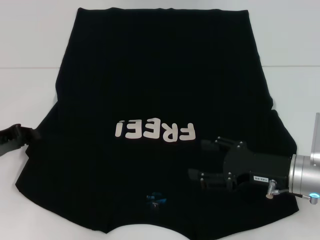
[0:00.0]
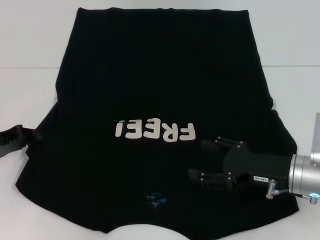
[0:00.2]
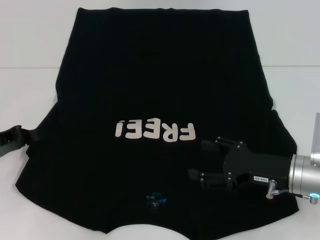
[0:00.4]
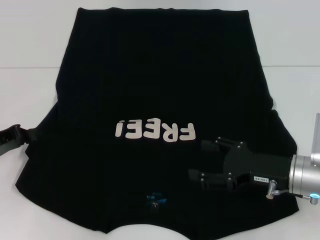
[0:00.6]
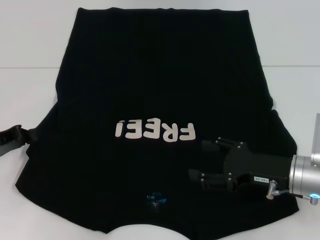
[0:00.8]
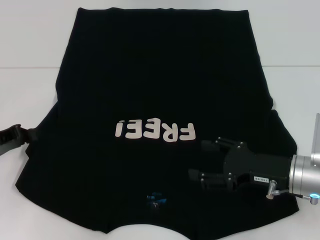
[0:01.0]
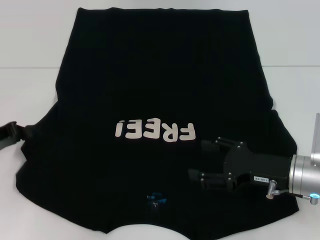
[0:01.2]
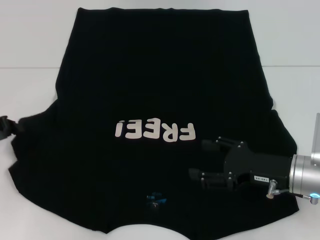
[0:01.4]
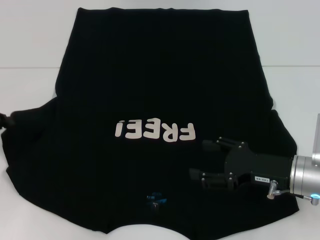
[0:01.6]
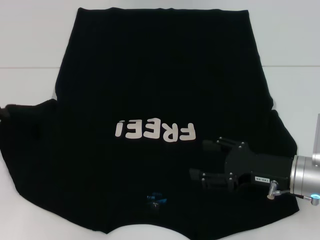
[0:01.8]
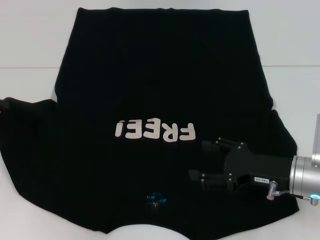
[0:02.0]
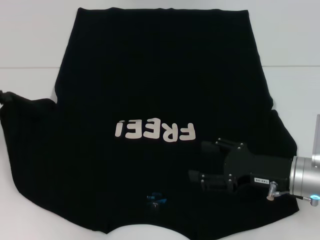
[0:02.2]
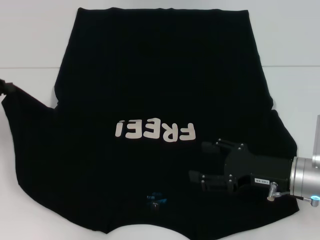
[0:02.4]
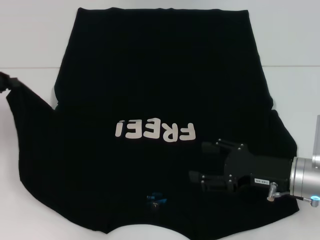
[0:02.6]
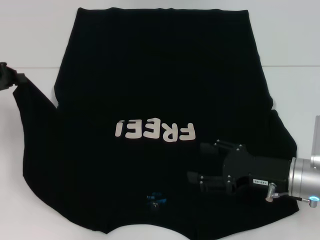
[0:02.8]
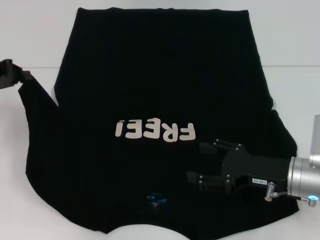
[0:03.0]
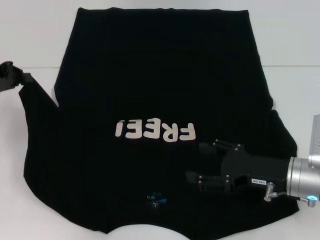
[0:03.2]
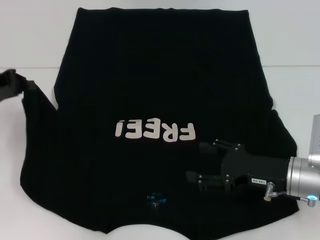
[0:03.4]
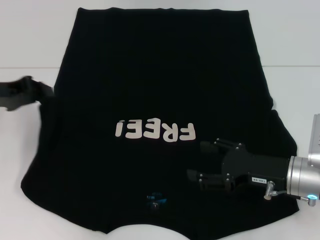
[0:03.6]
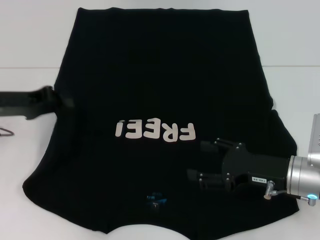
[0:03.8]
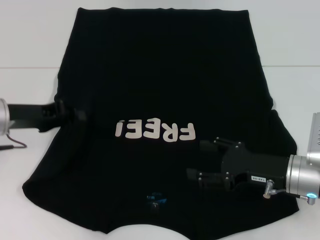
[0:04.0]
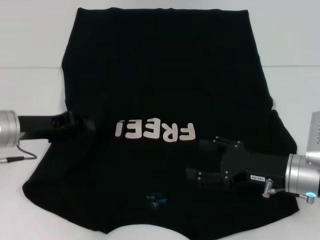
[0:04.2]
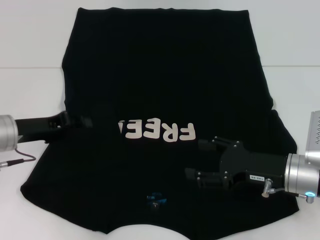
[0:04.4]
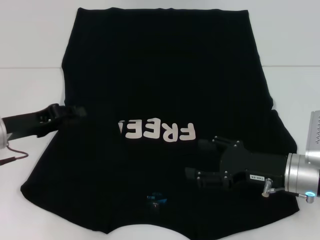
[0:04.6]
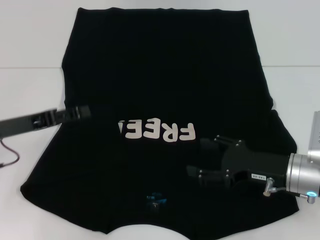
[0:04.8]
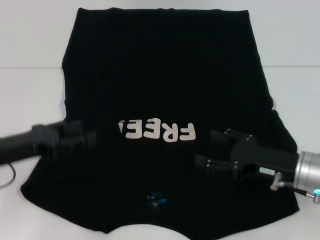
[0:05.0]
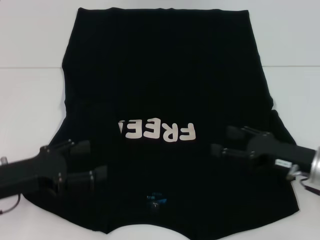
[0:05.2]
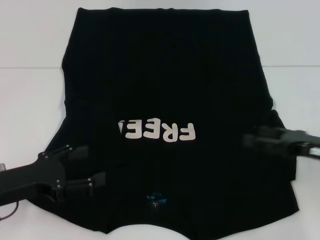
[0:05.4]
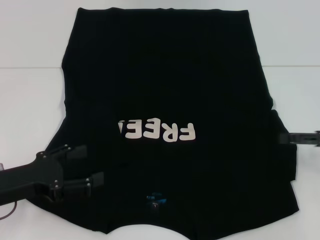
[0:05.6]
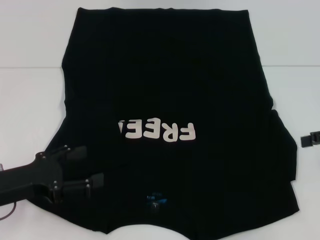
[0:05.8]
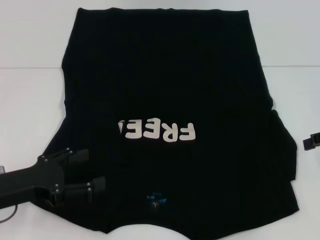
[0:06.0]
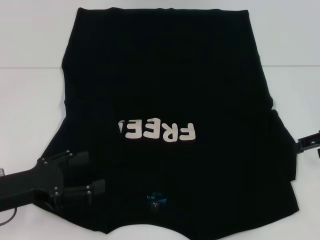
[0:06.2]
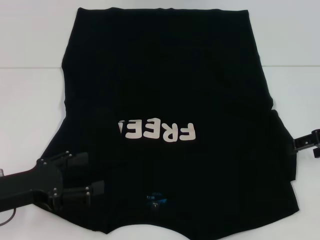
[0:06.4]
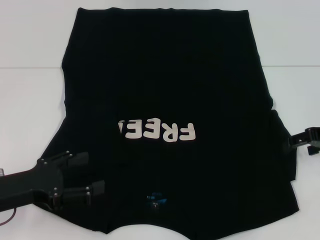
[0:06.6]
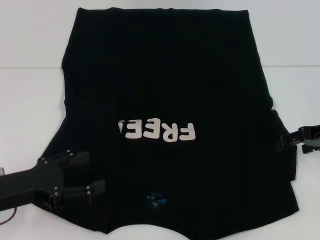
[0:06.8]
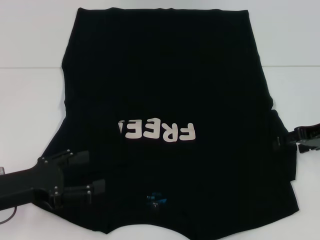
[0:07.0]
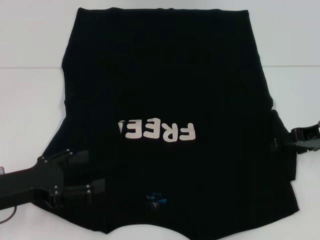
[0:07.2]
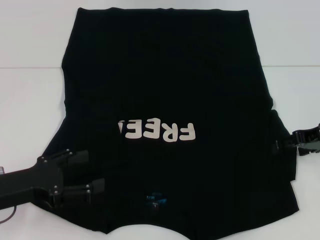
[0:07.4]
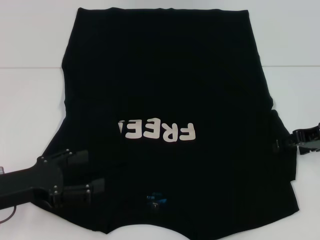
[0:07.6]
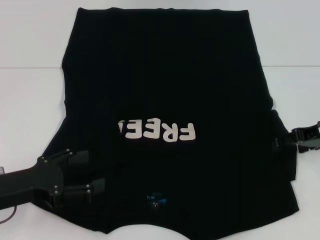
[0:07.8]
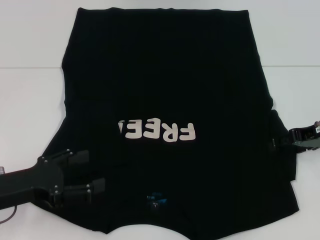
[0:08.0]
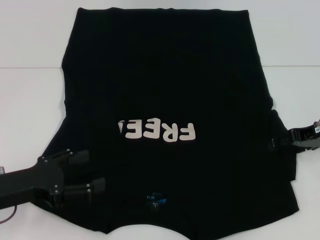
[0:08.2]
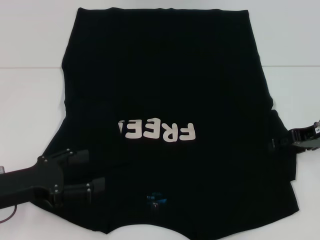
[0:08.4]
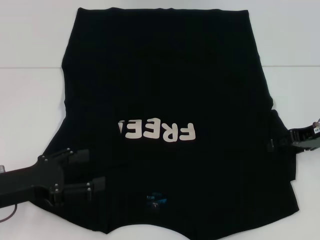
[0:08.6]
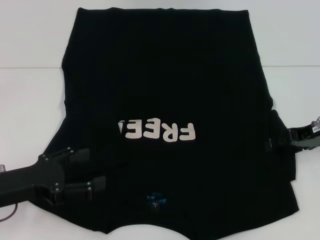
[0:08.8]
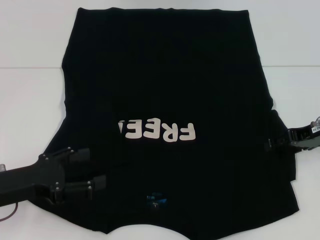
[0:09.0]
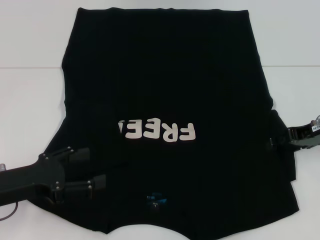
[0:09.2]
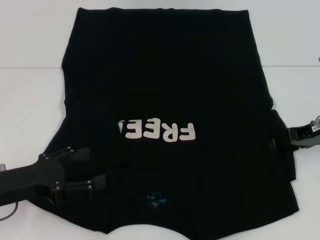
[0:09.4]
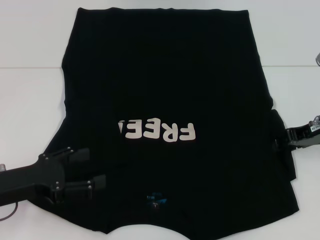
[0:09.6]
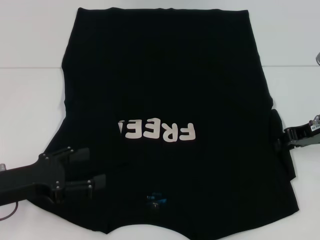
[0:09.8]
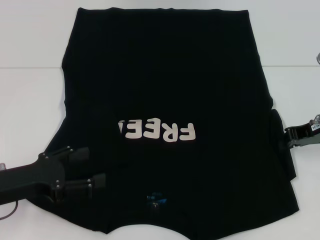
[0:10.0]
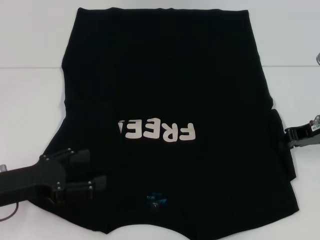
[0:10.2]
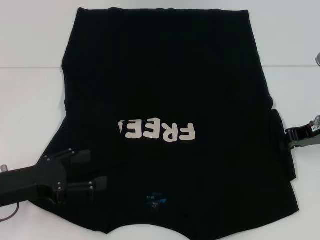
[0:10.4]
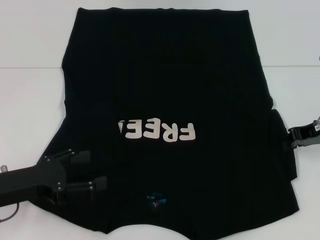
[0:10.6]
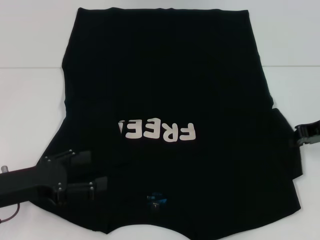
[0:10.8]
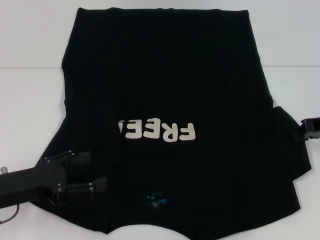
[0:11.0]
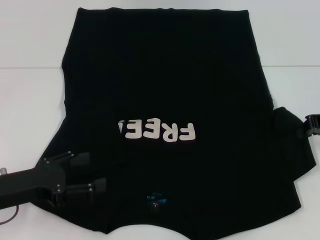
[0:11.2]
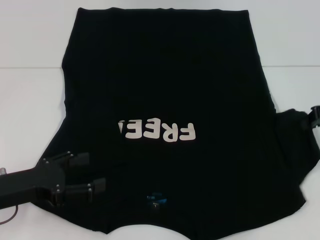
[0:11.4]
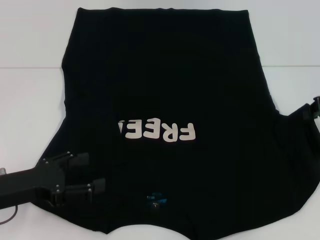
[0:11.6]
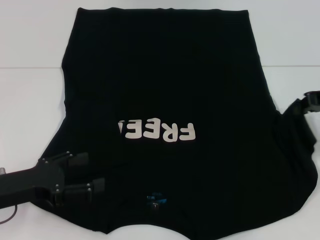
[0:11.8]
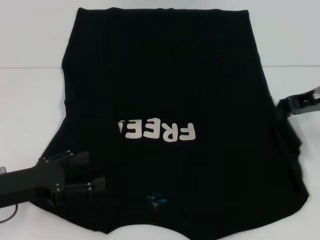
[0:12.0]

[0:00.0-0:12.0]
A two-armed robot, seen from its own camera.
Step, 0:00.0 to 0:04.8: Fold the bottom left sleeve with your left hand.
0:00.0 to 0:01.6: The grippers make only small movements.
0:01.6 to 0:03.0: The left gripper goes approximately 10 cm upward and forward.
0:03.0 to 0:04.4: The left gripper goes roughly 10 cm downward and to the right.
0:04.4 to 0:06.0: The left gripper travels backward by about 10 cm, and opens its fingers; the right gripper shifts some 20 cm to the right, upward and forward.
0:06.0 to 0:07.6: The right gripper changes place by about 5 cm.
0:07.6 to 0:09.0: The two grippers keep their place.
0:09.0 to 0:10.4: The right gripper closes.
0:10.4 to 0:12.0: The right gripper shifts about 5 cm upward.

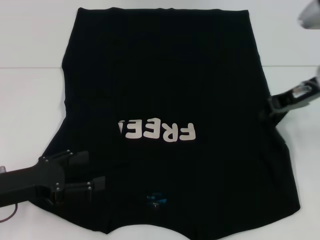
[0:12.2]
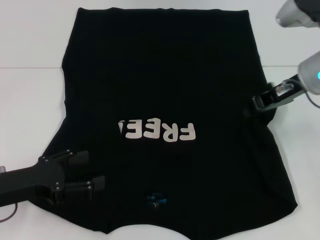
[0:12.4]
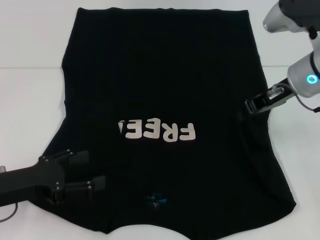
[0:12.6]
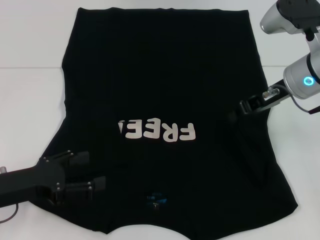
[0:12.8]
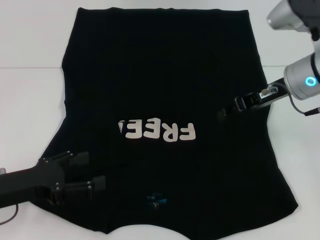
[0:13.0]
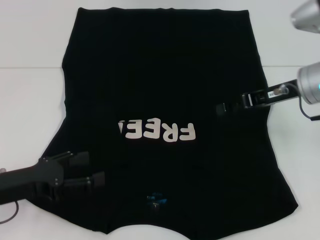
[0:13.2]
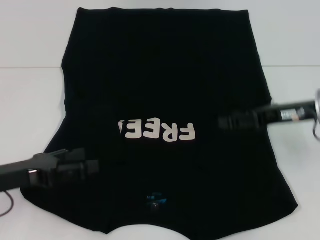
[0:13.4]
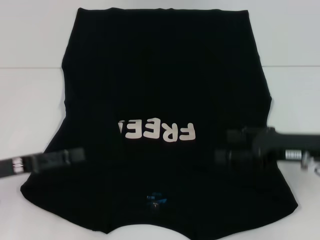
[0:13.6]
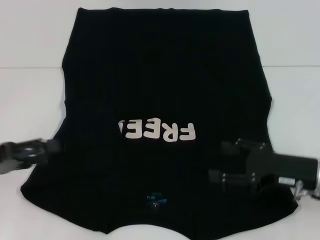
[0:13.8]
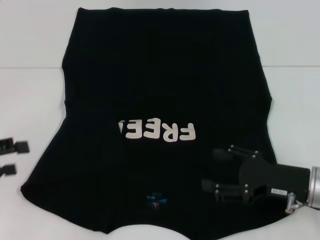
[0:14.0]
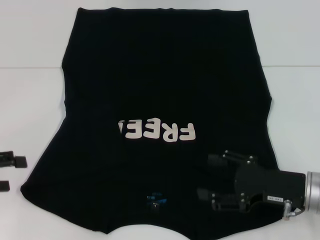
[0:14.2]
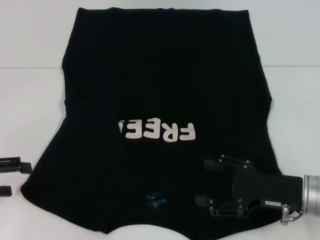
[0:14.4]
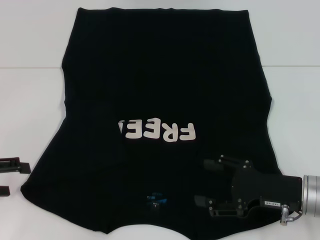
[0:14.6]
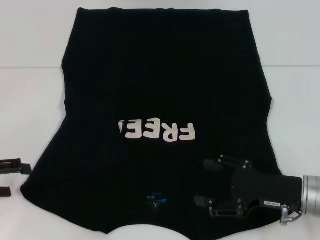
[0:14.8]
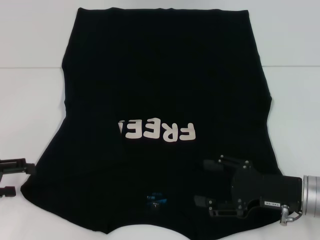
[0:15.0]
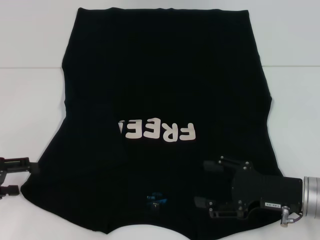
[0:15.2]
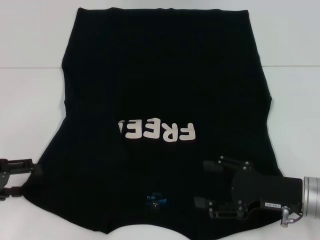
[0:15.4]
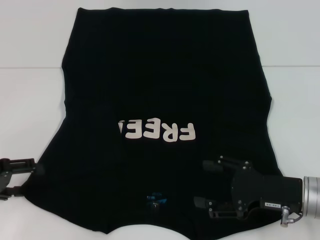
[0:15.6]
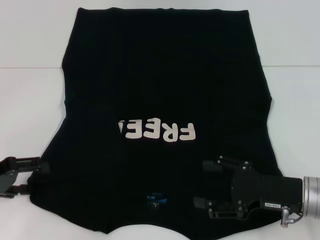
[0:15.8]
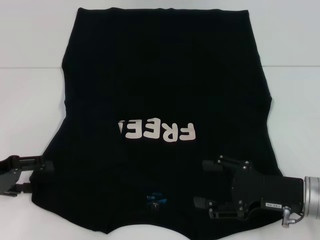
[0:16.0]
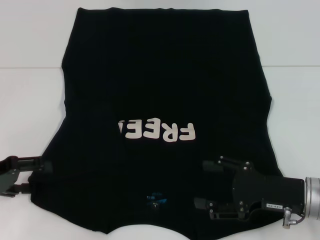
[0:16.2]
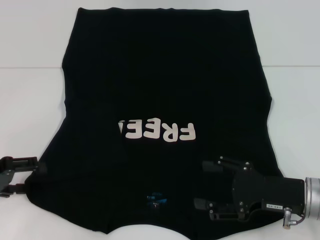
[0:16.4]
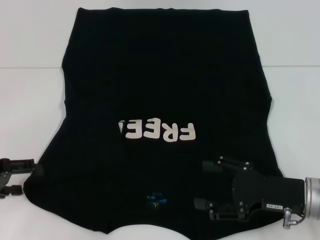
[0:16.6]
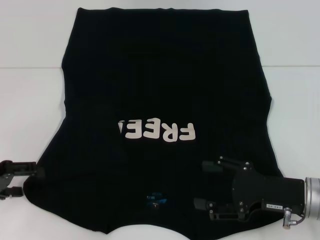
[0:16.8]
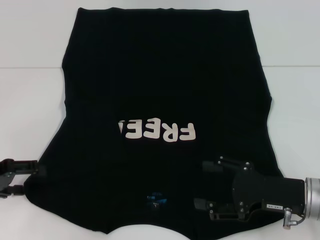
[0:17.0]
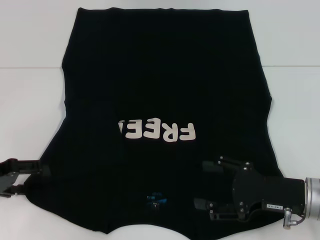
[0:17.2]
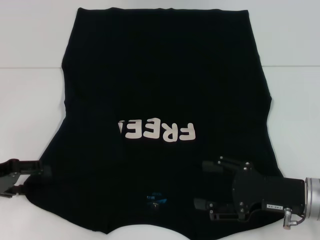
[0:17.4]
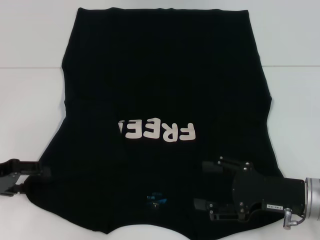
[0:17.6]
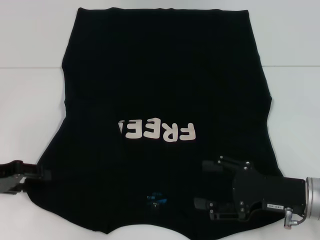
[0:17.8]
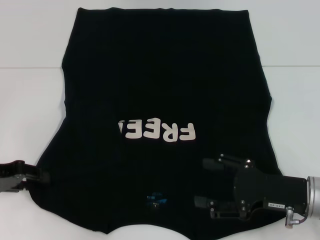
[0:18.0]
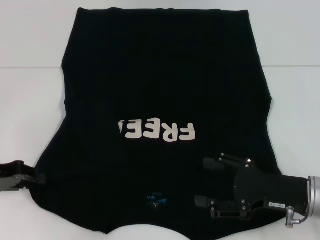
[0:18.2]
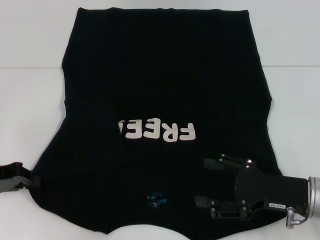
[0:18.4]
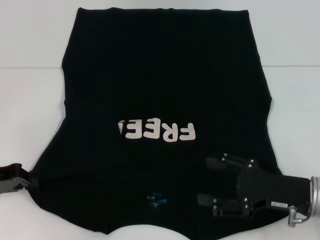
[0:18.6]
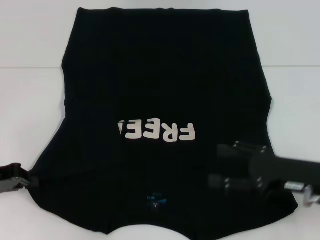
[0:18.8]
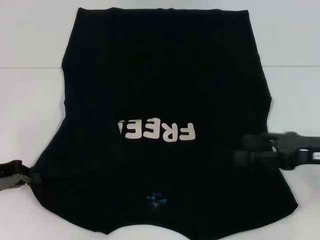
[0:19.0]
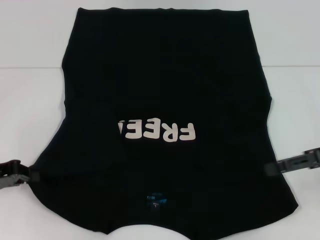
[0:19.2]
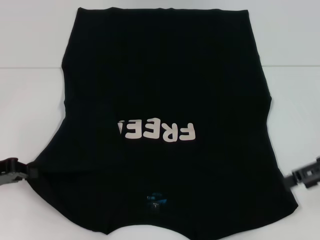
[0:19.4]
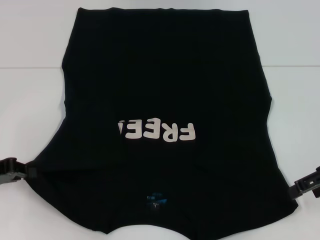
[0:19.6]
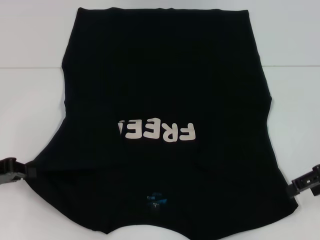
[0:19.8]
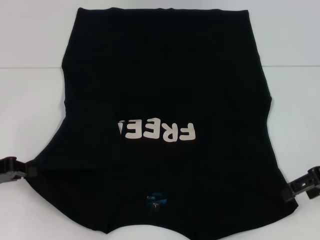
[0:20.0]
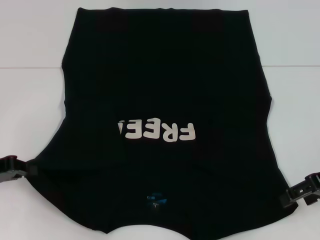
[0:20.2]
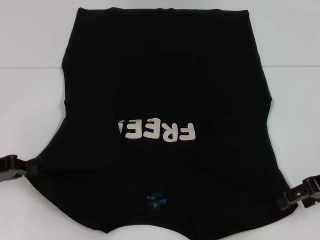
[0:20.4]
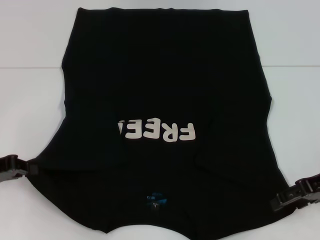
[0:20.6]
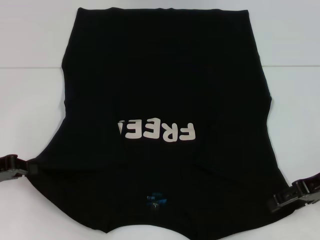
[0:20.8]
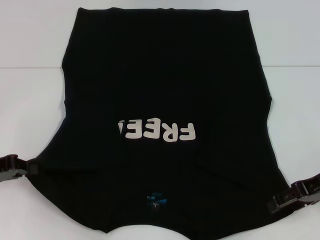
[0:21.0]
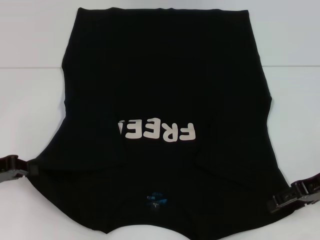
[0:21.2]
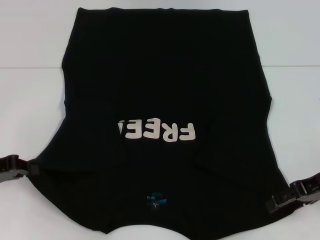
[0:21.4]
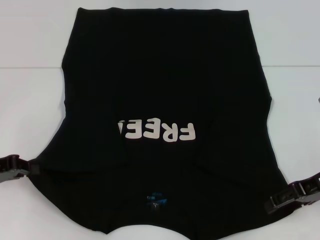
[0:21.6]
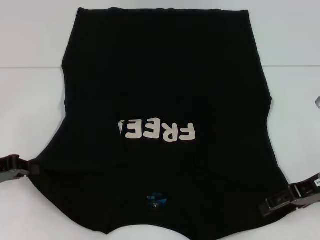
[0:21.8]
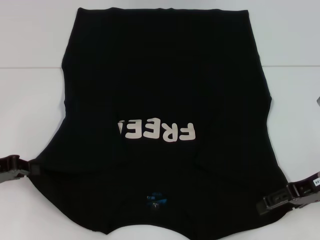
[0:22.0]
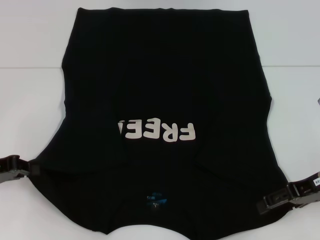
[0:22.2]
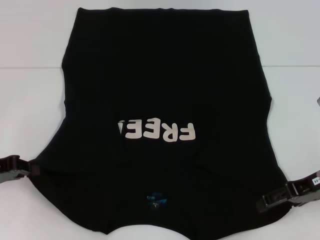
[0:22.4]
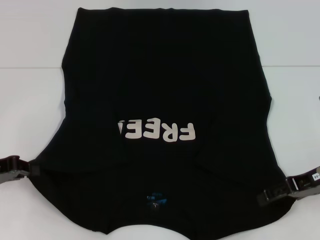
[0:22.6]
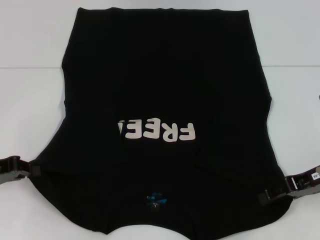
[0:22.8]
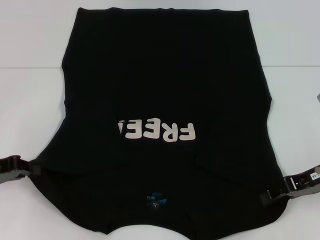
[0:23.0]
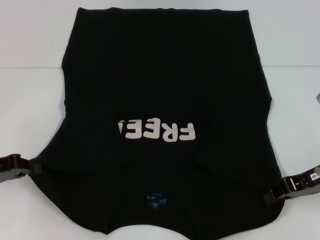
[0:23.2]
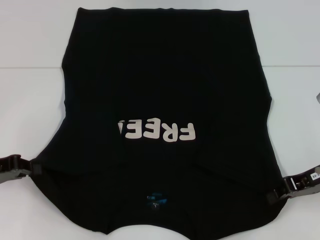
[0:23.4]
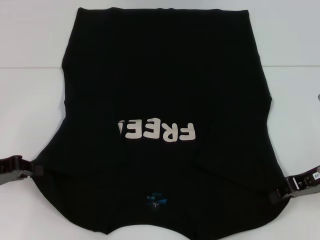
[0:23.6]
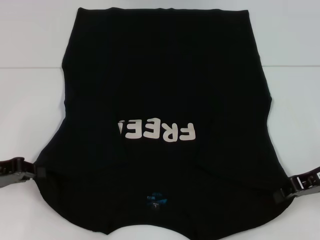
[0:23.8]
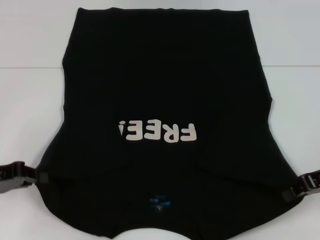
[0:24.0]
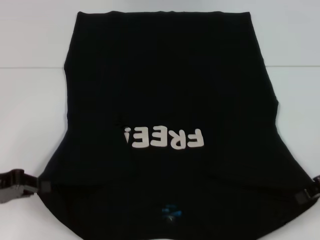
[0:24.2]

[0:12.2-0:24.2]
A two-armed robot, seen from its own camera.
Step, 0:13.4 to 0:18.8: Grab the bottom left corner with your left hand.
Step, 0:19.0 to 0:23.6: Grab the bottom right corner with your right hand.
0:12.2 to 0:13.8: The right gripper heads backward and downward, covering roughly 15 cm, and opens, while the left gripper goes some 5 cm to the left.
0:15.2 to 0:16.6: The grippers make only small movements.
0:16.6 to 0:18.2: The left gripper closes up.
0:18.2 to 0:19.8: The right gripper travels upward, to the right and forward by some 15 cm; the left gripper closes up.
0:19.8 to 0:22.6: The grippers move only a little.
0:22.6 to 0:24.2: The right gripper closes its fingers.
